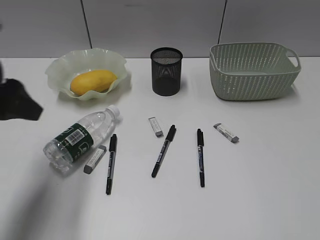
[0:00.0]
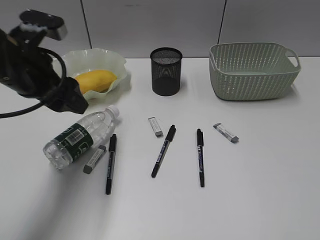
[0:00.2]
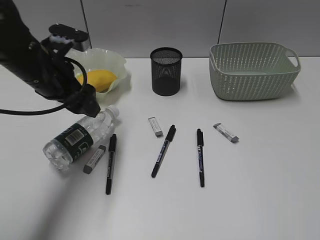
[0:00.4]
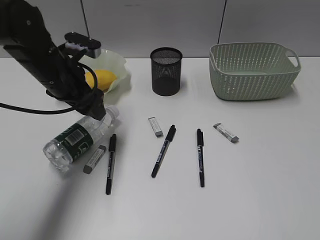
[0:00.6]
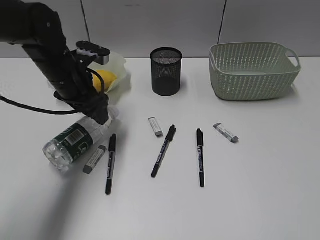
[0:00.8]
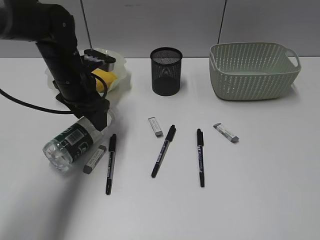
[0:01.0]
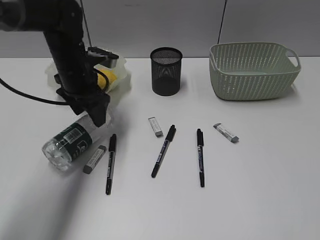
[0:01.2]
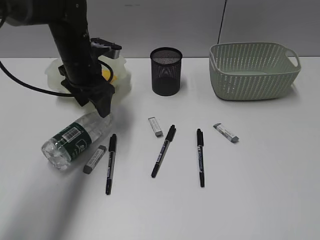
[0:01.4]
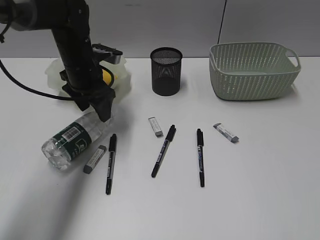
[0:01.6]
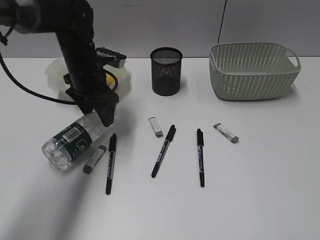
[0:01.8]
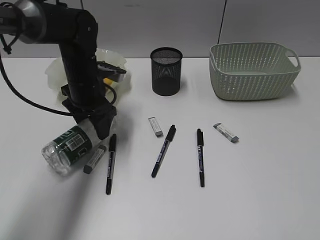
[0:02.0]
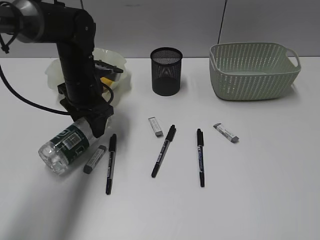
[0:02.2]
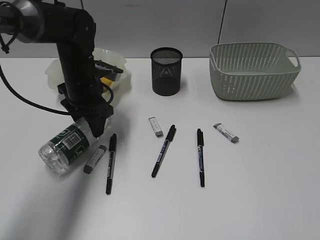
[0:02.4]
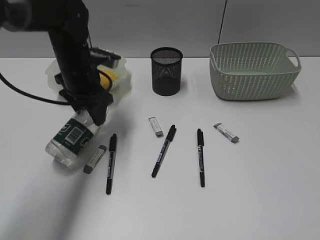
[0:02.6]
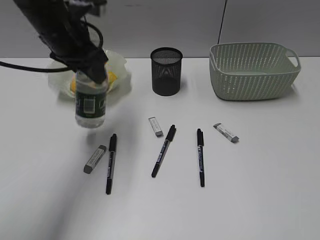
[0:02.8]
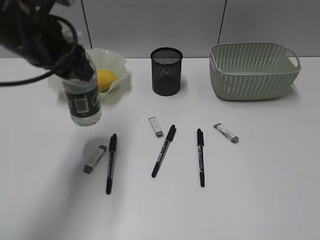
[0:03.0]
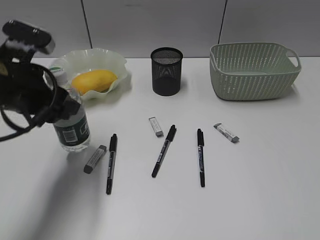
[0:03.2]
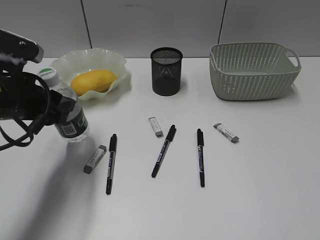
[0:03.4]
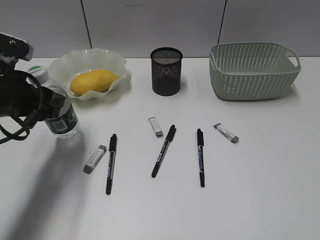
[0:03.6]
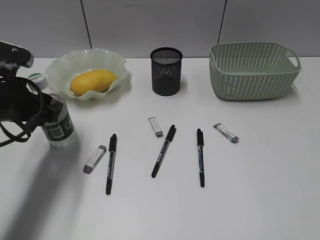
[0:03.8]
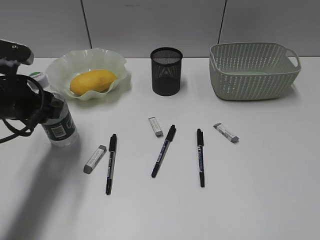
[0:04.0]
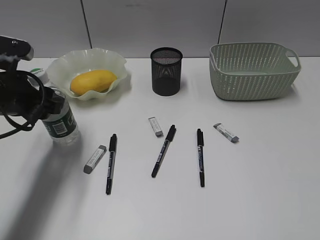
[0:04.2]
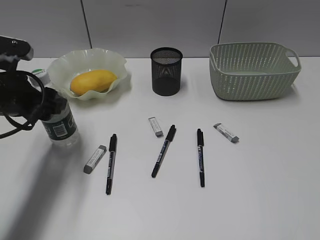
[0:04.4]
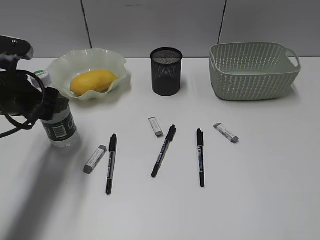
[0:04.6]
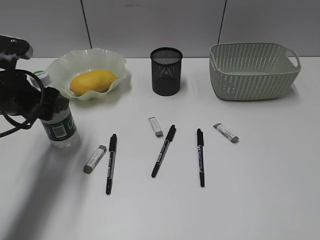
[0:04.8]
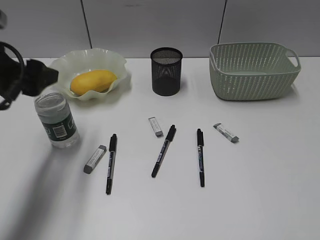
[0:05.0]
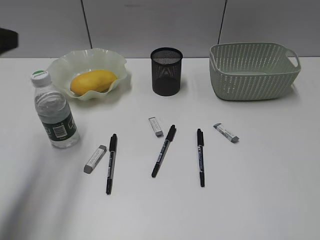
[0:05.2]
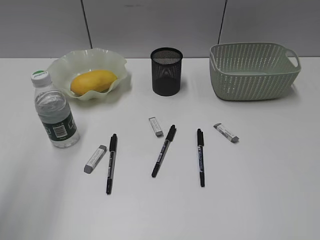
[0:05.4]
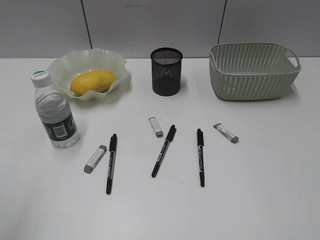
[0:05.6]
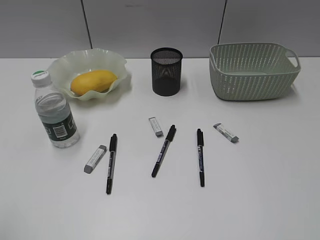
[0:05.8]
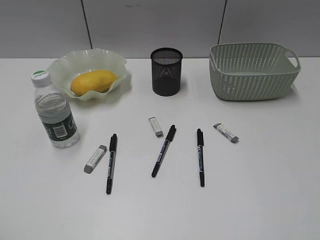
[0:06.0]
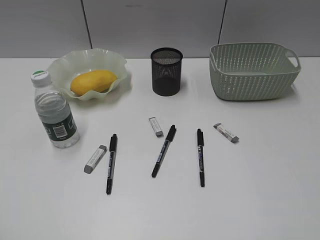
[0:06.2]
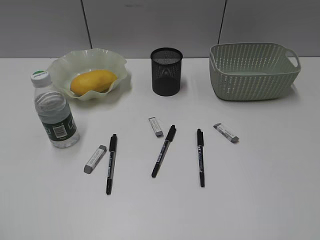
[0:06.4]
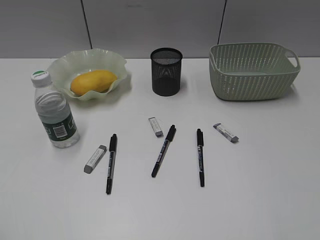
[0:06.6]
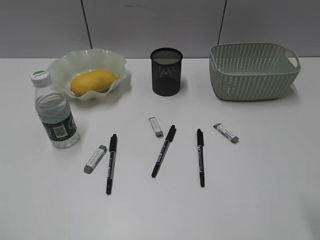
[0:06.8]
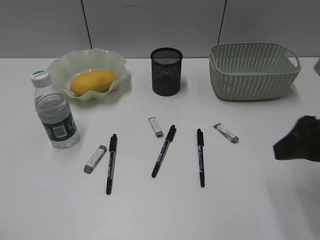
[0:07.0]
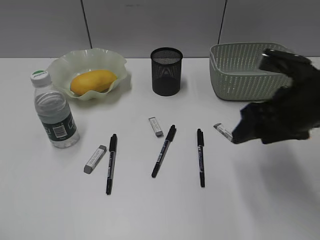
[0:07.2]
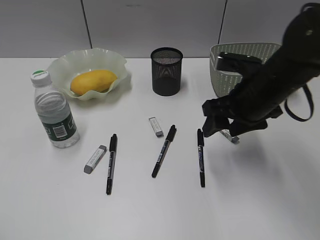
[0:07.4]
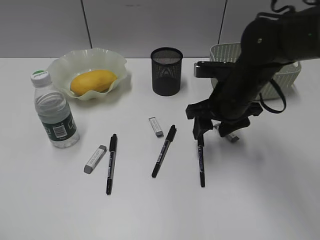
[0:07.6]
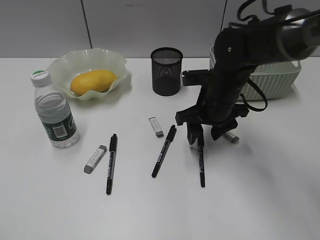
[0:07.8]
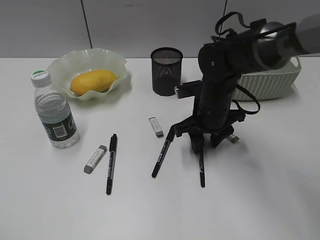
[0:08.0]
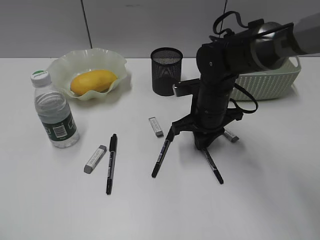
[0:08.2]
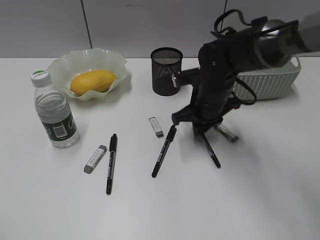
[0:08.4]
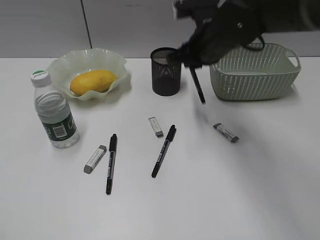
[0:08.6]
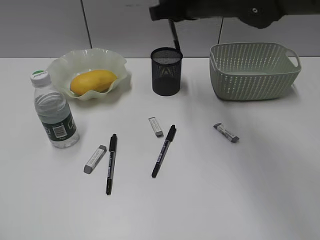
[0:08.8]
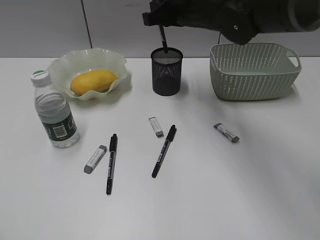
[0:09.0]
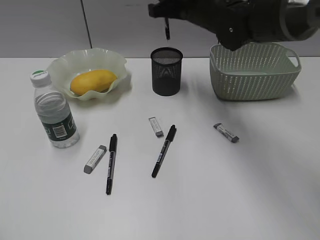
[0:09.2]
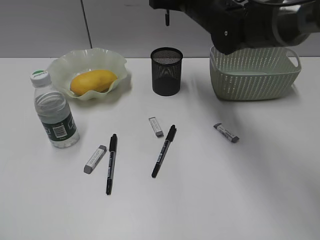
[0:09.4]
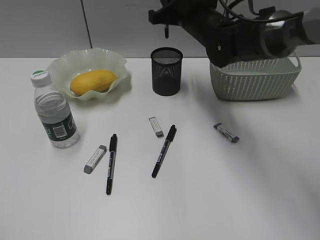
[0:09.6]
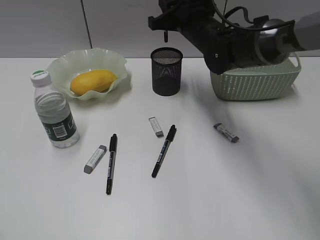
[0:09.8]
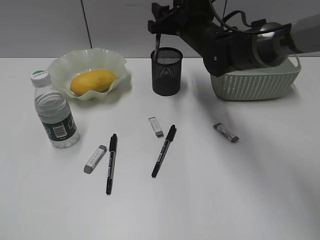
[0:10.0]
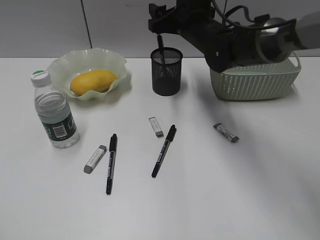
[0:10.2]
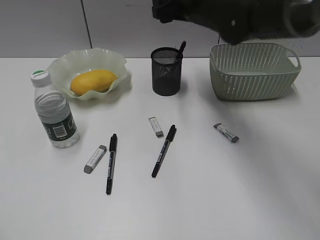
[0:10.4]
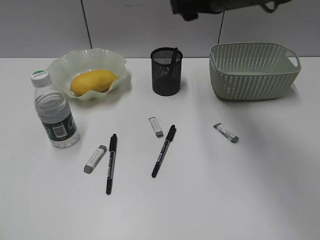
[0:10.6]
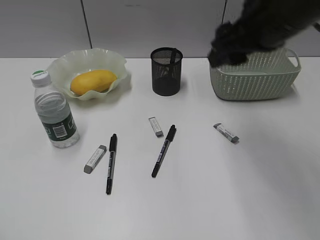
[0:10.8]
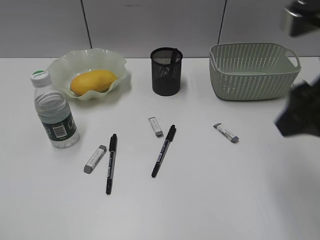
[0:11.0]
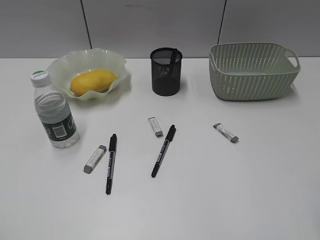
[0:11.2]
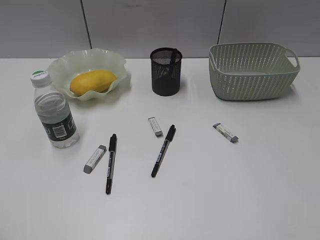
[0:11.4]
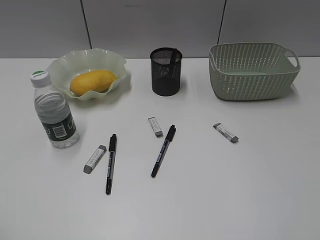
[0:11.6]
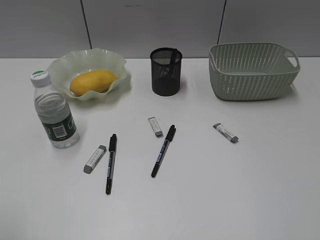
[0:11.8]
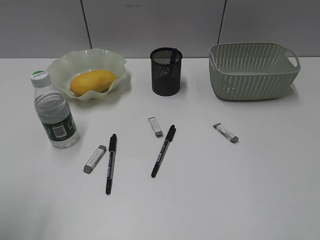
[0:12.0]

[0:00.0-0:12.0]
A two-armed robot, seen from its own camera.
Step, 0:00.0 to 0:02.0: Grasp the bottle with left gripper.
Step, 0:02.2 to 0:04.8: Stand the bottle with left gripper.
Step, 0:05.0 to 0:08.2: Grasp the black pen with right gripper.
0:00.0 to 0:01.6: The left gripper moves forward, downward and to the right, roughly 25 cm.
0:01.6 to 0:03.0: The left gripper shifts about 15 cm upward and backward.
0:03.0 to 0:04.4: The left gripper moves downward and to the left, about 10 cm.
0:04.4 to 0:06.0: The left gripper travels backward and upward by some 30 cm.
0:06.0 to 0:07.6: The right gripper goes about 40 cm forward and to the left.
0:07.6 to 0:09.0: The right gripper shifts some 15 cm upward, forward and to the left, and closes up.
0:09.0 to 0:10.4: The right gripper opens.
0:10.4 to 0:12.0: The right gripper goes roughly 50 cm backward and to the right, while the left gripper goes roughly 10 cm forward.

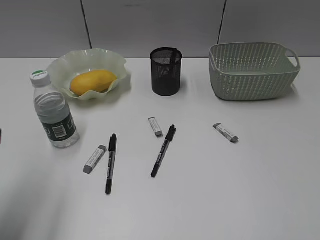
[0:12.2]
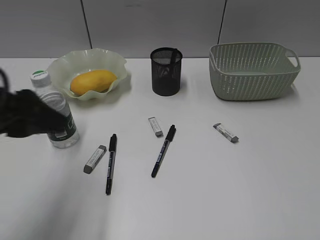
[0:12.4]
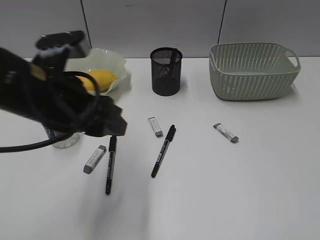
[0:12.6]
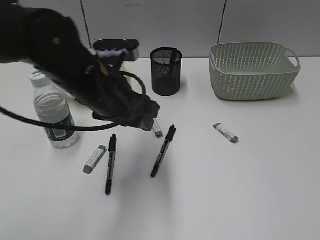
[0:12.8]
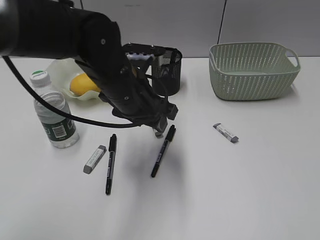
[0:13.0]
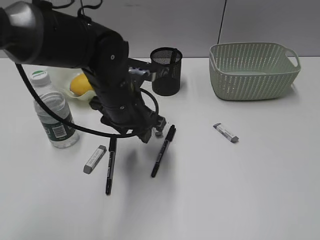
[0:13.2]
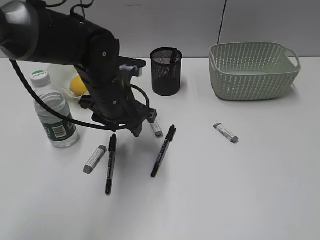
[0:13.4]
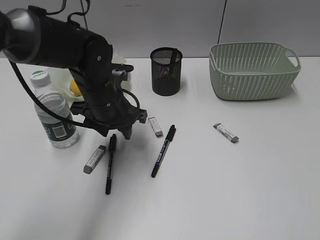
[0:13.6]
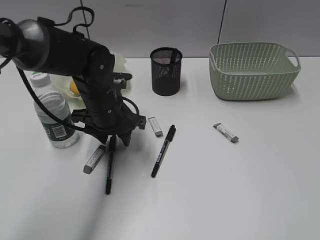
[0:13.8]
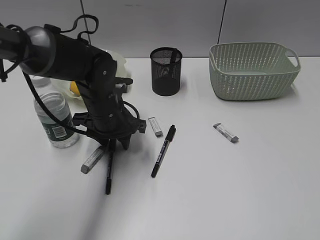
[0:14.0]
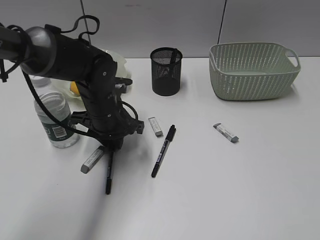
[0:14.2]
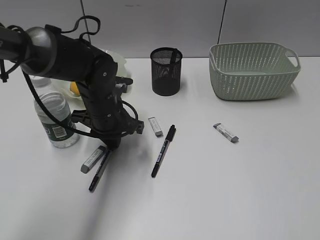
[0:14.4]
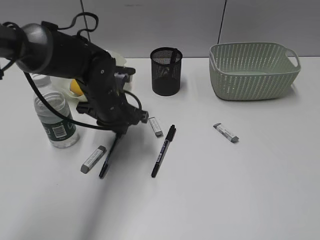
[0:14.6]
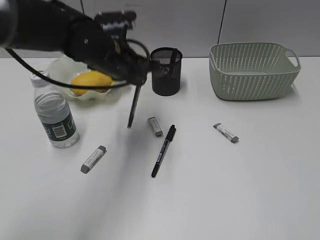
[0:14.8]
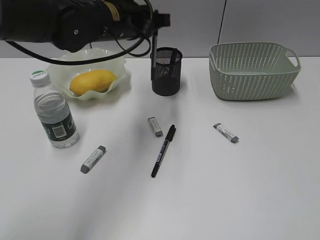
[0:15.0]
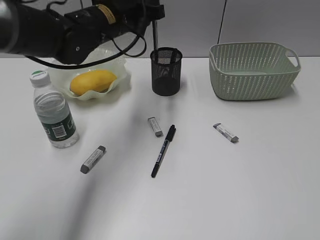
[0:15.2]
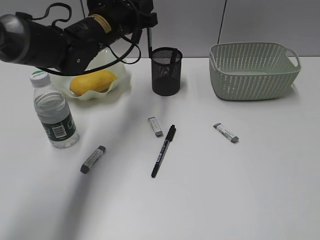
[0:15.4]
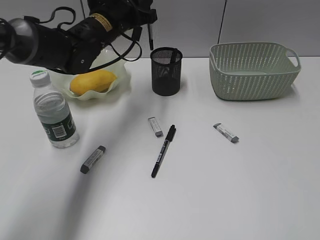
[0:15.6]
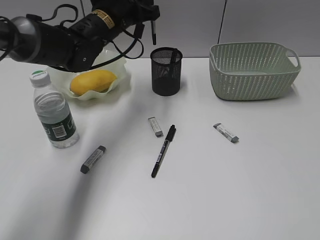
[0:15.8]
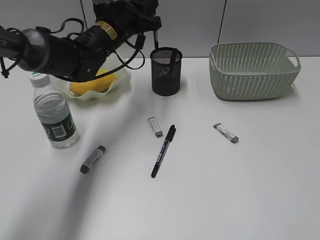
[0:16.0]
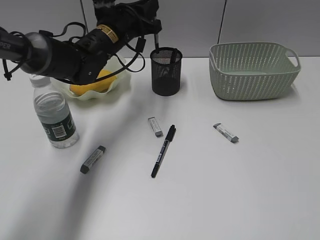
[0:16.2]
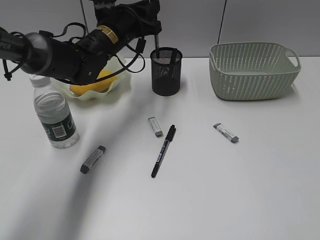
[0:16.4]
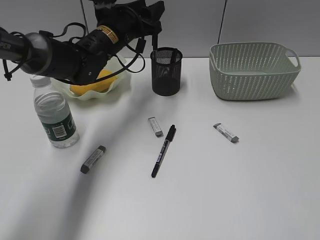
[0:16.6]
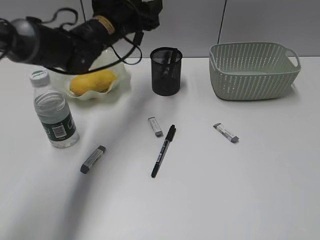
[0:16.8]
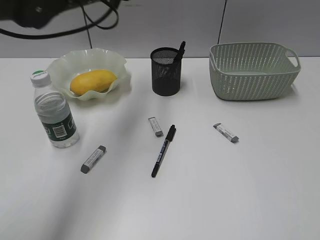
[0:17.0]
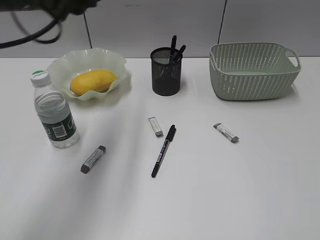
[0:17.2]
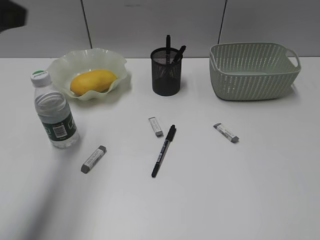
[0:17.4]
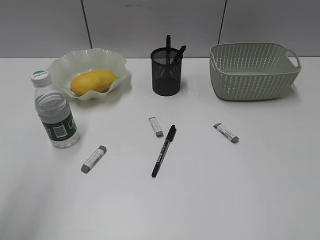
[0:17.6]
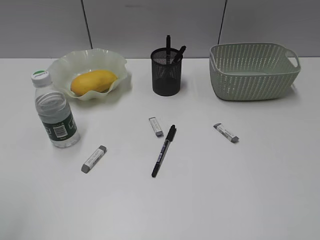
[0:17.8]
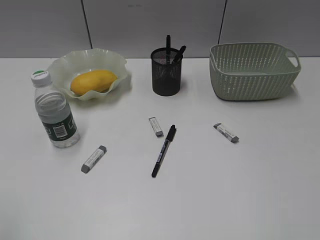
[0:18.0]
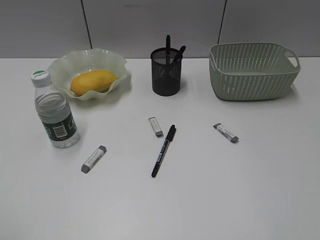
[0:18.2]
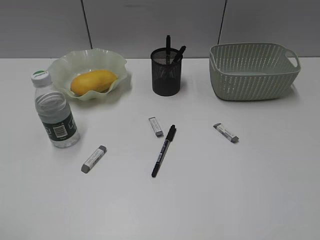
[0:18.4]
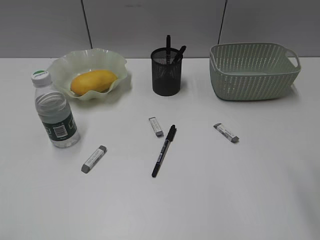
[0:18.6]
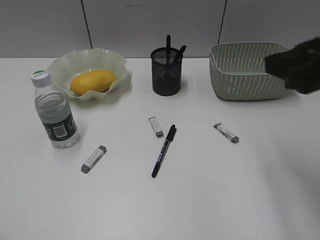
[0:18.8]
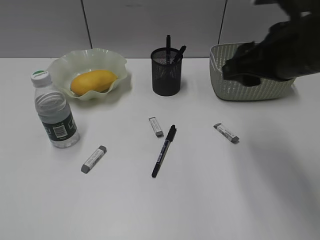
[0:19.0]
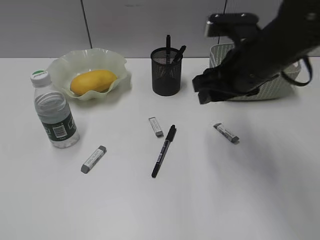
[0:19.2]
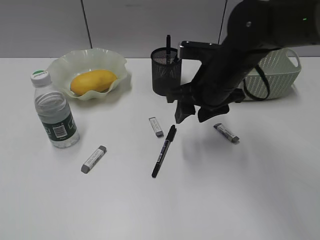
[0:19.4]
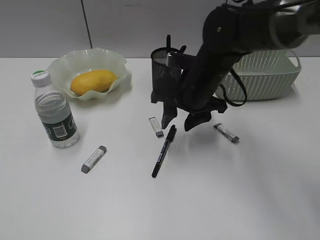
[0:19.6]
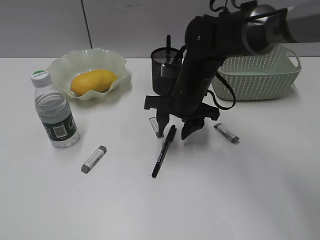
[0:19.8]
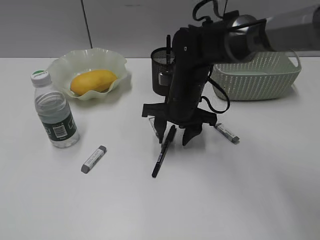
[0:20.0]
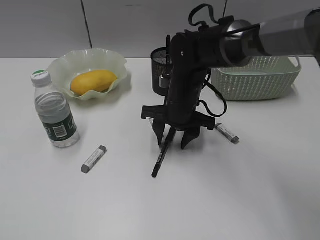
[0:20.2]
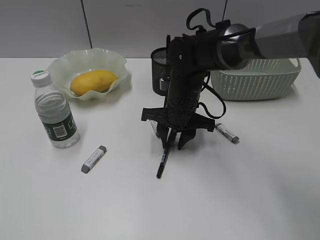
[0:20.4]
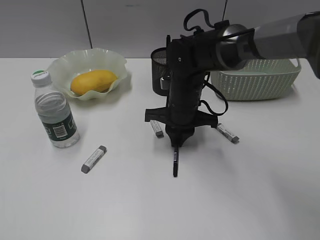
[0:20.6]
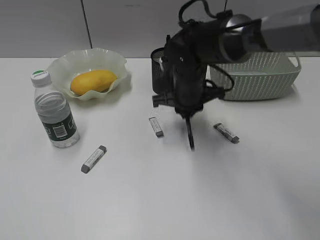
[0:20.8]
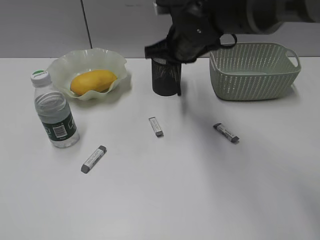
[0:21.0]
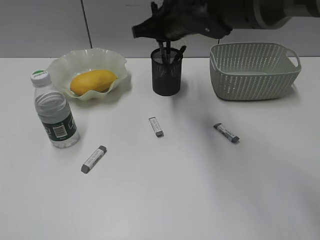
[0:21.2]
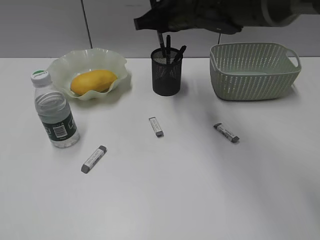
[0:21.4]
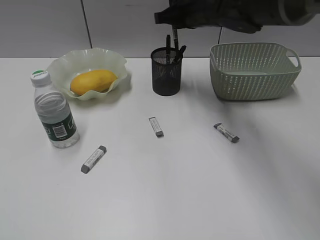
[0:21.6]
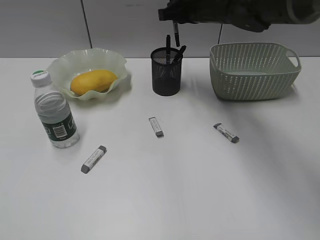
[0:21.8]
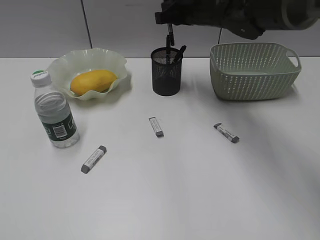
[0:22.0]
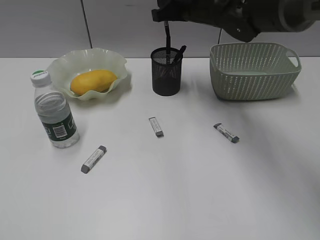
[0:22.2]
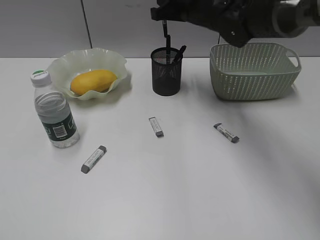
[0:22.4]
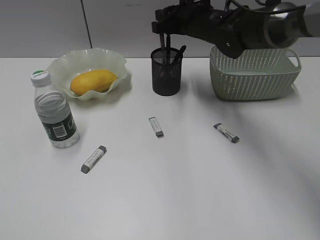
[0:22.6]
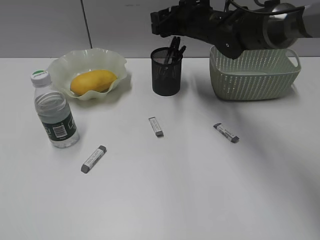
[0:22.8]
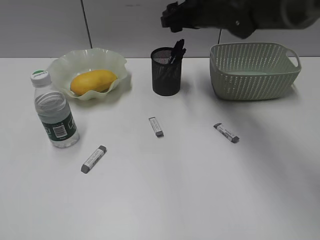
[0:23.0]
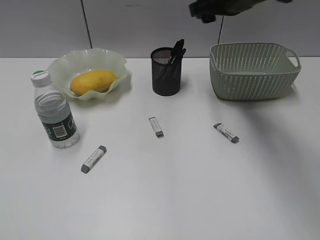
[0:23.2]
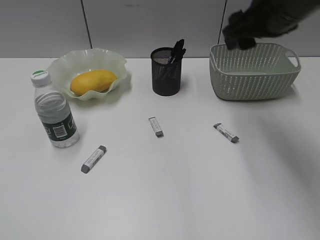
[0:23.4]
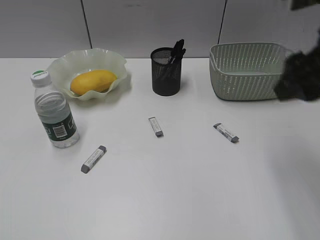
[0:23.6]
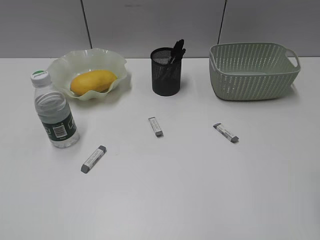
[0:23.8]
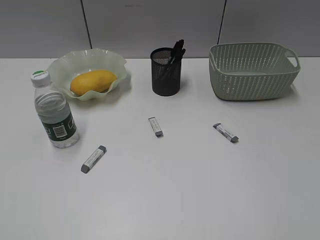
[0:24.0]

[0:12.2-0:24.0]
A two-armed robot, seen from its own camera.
Step, 0:12.2 to 0:14.6: Grasp the black pen with left gripper.
Step, 0:14.8 to 0:17.0: Place the black pen in pen holder with left gripper.
Step, 0:17.2 to 0:20.4: Grasp the black pen with right gripper.
0:12.2 to 0:13.6: The left gripper heads to the right, forward and downward, covering about 30 cm.
0:13.6 to 0:15.2: The left gripper heads upward and forward, covering roughly 10 cm, and closes.
0:15.2 to 0:16.6: The left gripper ends up approximately 5 cm from where it was, and opens up.
0:16.6 to 0:18.2: The left gripper heads backward and to the left, covering approximately 50 cm.
0:18.2 to 0:19.6: The right gripper travels forward, to the left and downward by some 40 cm.
0:19.6 to 0:21.0: The right gripper changes place by roughly 5 cm, and closes.
0:21.0 to 0:22.6: The right gripper shifts about 5 cm forward, and opens its fingers.
0:22.6 to 0:24.0: The right gripper heads backward and to the right, covering some 50 cm, and opens.
